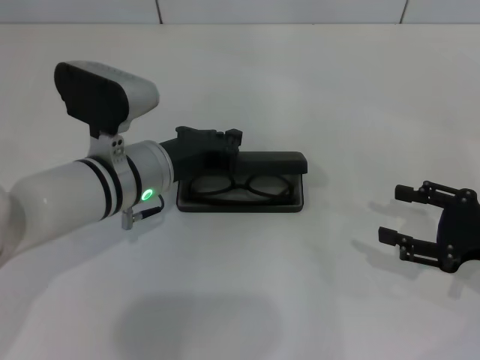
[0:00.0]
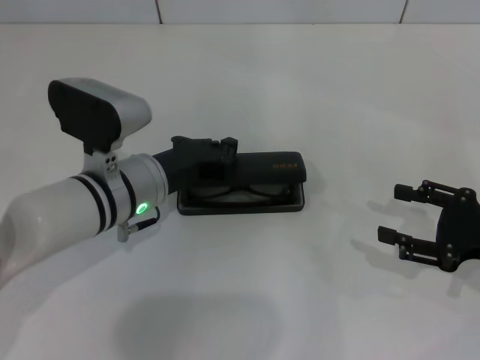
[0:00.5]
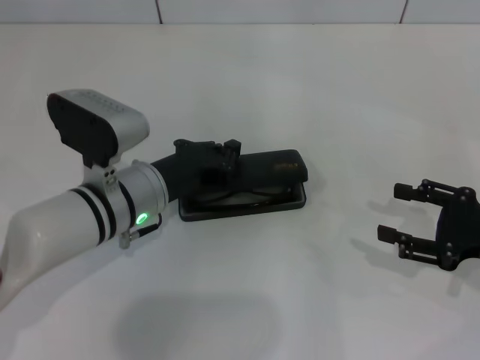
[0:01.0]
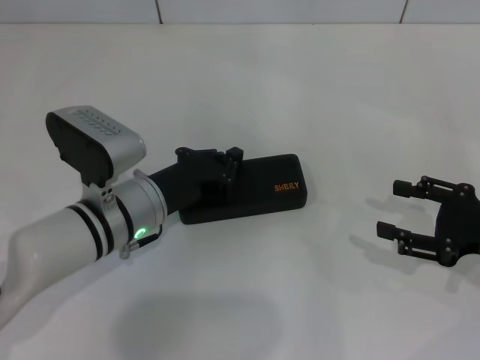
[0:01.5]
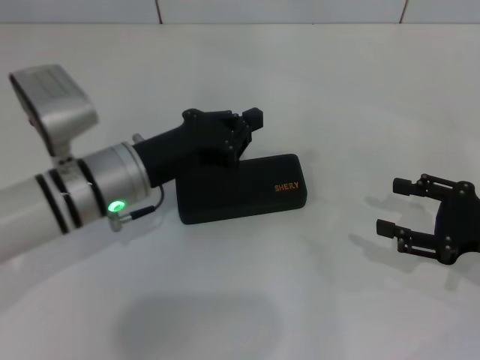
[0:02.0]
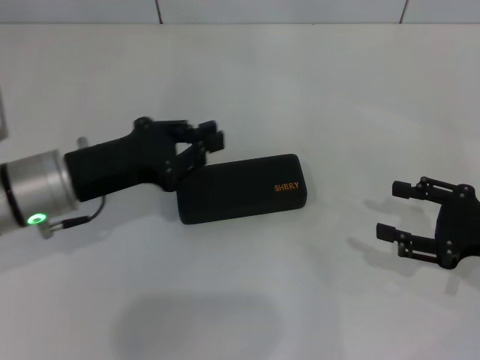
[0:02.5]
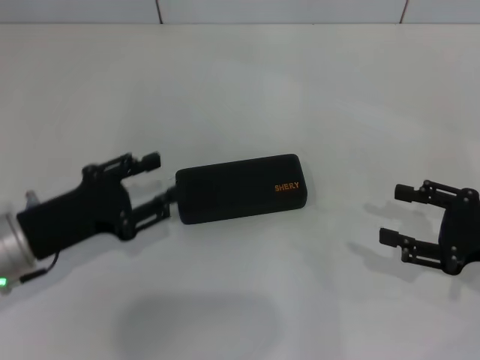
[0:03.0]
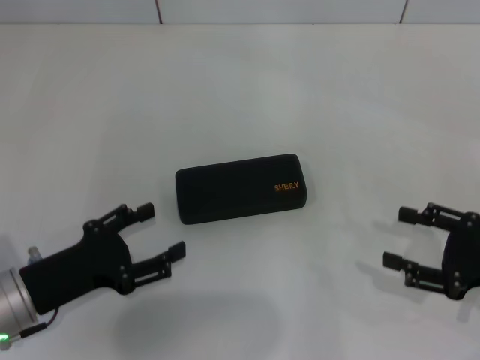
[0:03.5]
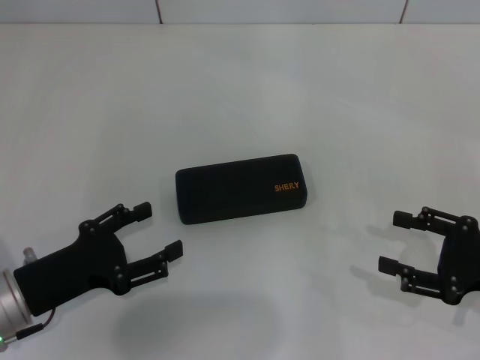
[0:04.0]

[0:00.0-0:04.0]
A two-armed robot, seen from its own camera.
0:02.0 to 0:04.0: The left gripper travels backward, to the left and downward by approximately 15 cm, and opens its fingers.

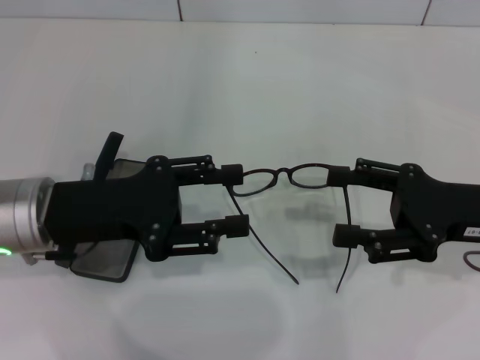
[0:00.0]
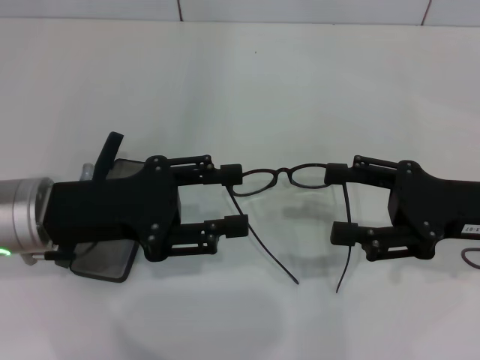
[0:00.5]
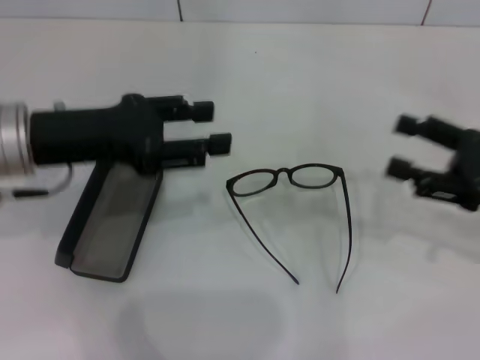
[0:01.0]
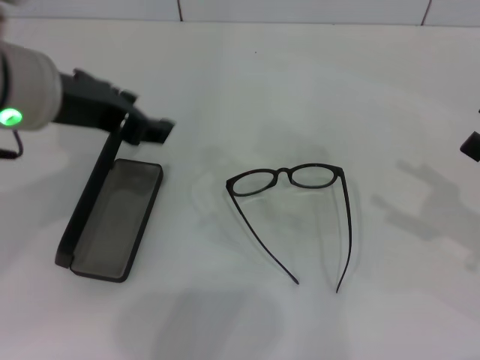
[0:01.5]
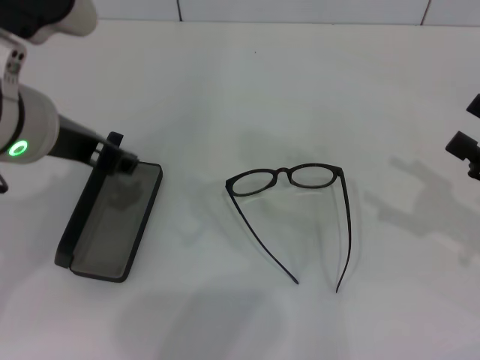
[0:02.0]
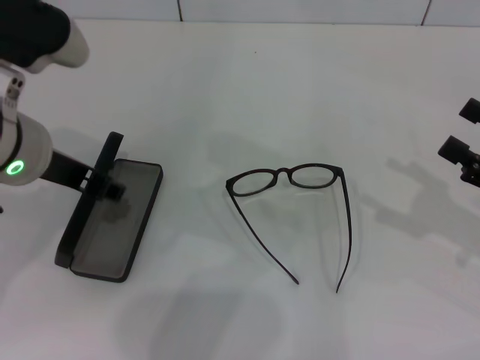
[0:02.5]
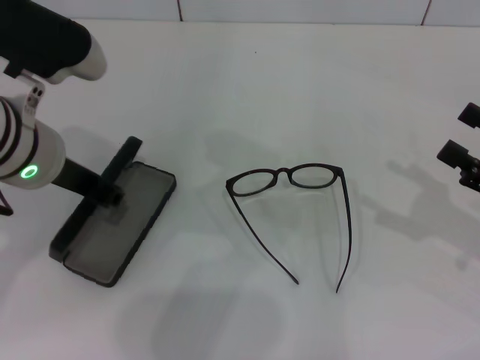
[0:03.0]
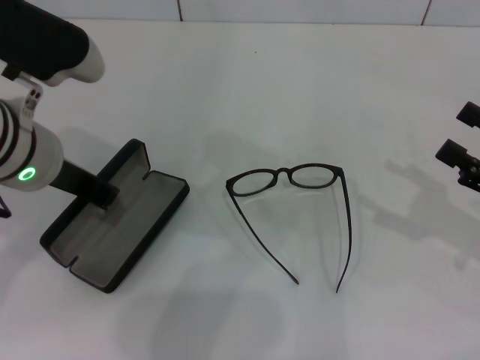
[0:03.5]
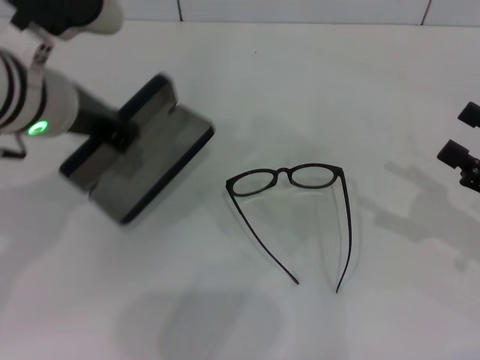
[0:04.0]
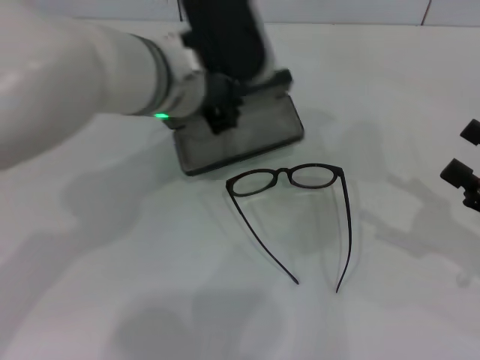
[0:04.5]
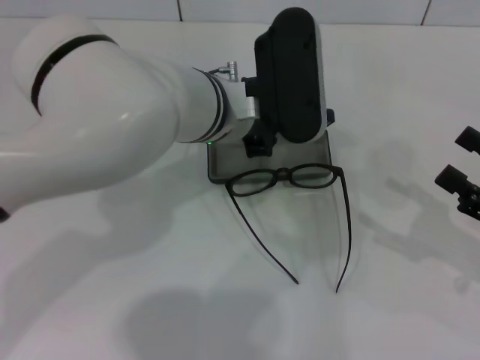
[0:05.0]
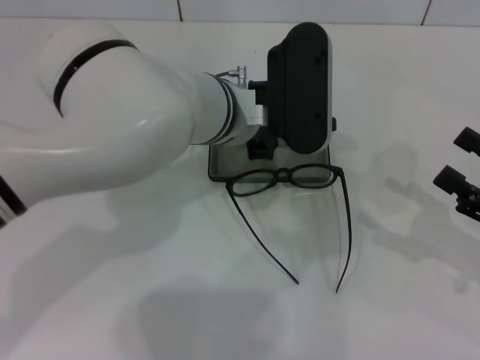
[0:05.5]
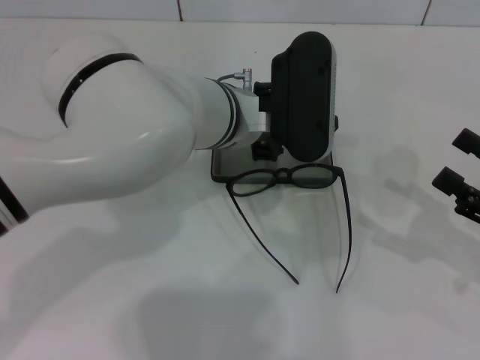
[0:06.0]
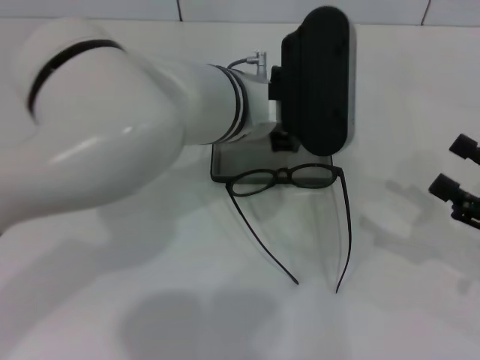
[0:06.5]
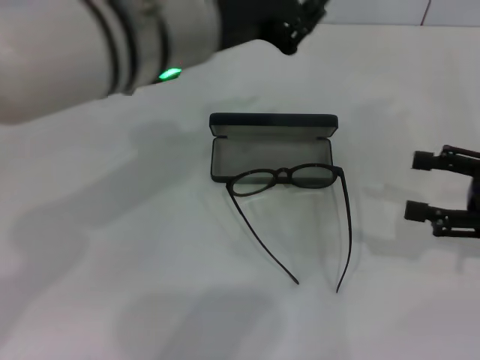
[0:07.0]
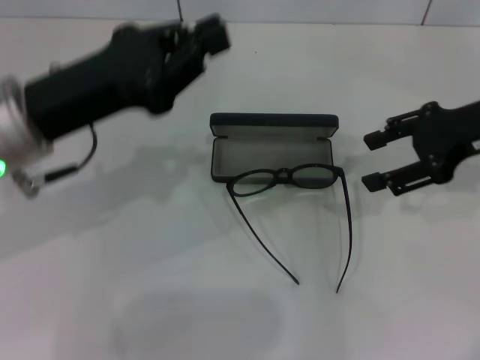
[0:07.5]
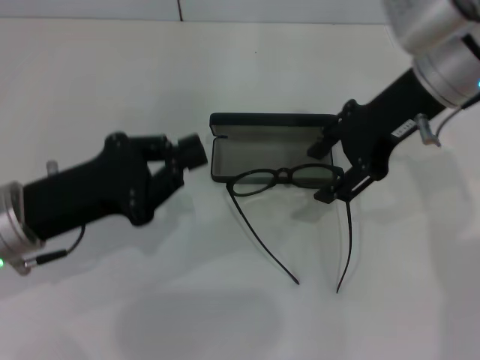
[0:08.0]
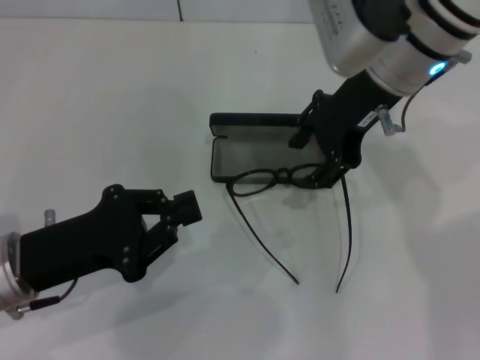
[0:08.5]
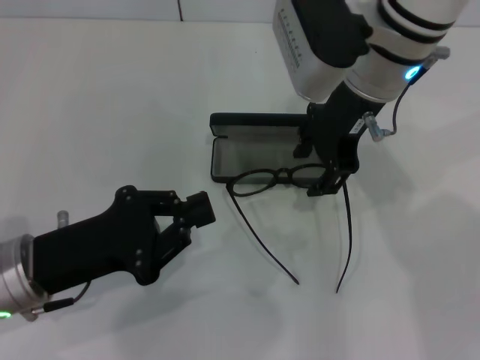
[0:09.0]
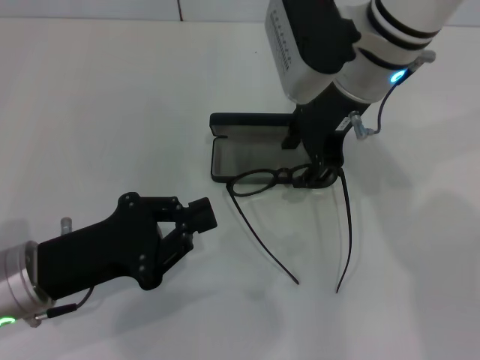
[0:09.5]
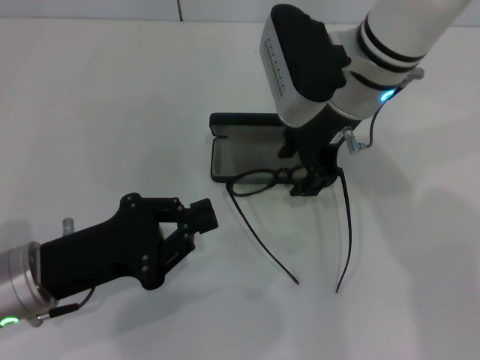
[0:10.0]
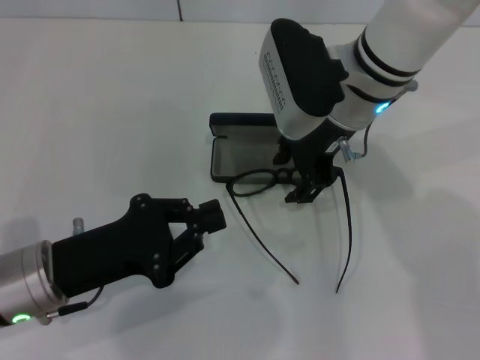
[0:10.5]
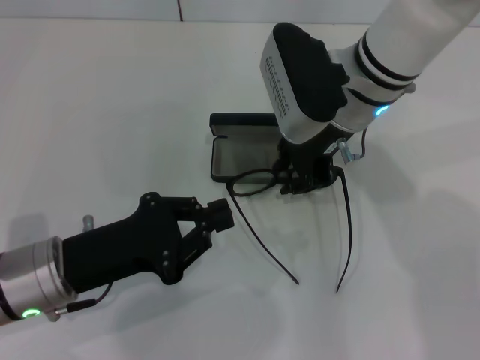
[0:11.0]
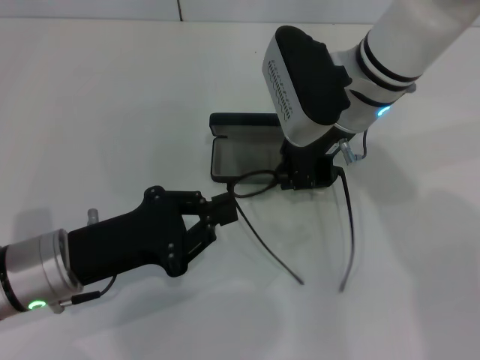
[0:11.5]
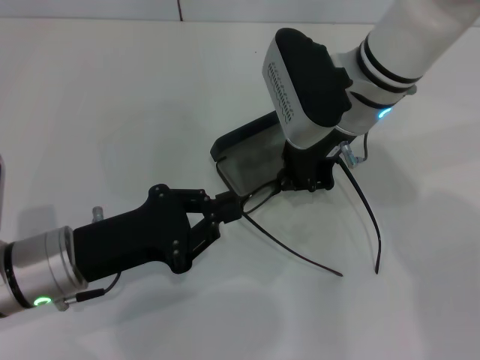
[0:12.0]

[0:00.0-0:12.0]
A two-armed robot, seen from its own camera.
Step, 0:00.0 to 0:03.0: Grab the glasses case with your left hand.
Step, 0:03.5 to 0:06.0: Place the glasses case in the center of the table with your left hand.
0:00.0 to 0:02.0: The left gripper goes some 10 cm upward; the right gripper travels to the right by some 10 cm.
0:02.0 to 0:04.0: The left gripper closes.
0:04.0 to 0:06.0: The left gripper is displaced to the right and downward by about 15 cm.
0:06.0 to 0:08.0: The left gripper is displaced to the left and backward by some 25 cm. The right gripper travels to the left, forward and upward by some 30 cm.
0:08.0 to 0:10.0: The right gripper shifts approximately 10 cm to the left.
0:10.0 to 0:12.0: The right gripper closes.

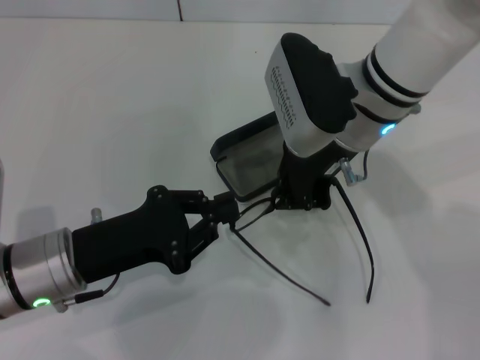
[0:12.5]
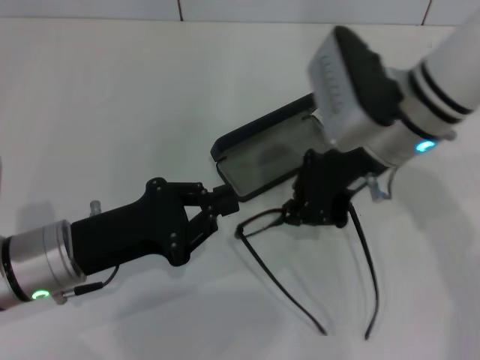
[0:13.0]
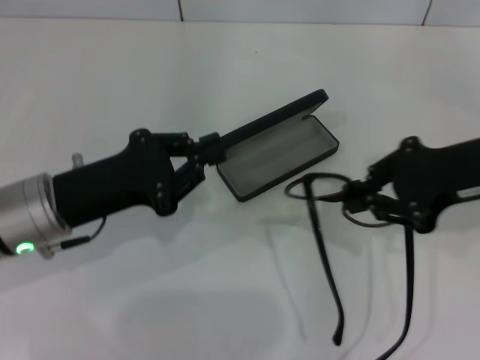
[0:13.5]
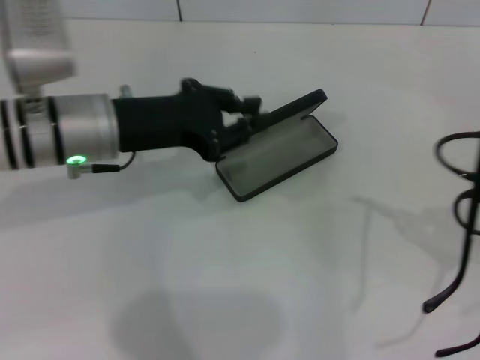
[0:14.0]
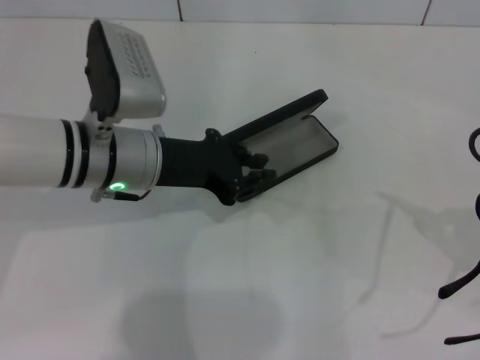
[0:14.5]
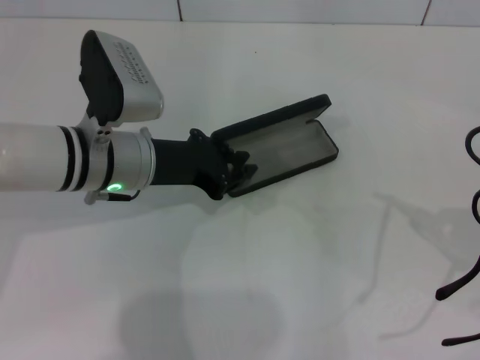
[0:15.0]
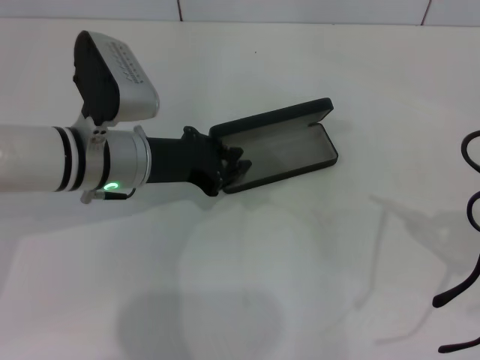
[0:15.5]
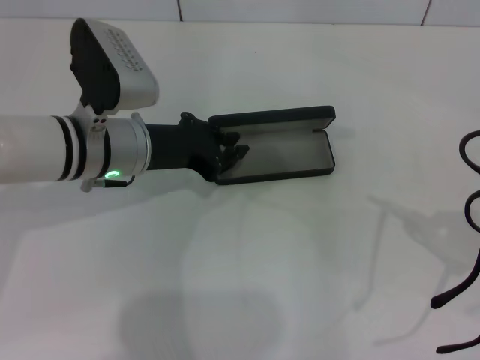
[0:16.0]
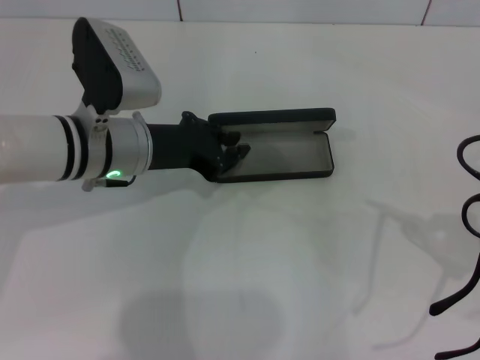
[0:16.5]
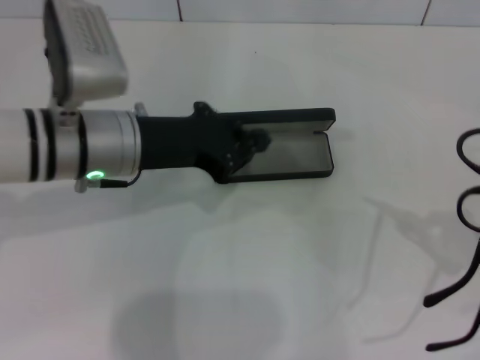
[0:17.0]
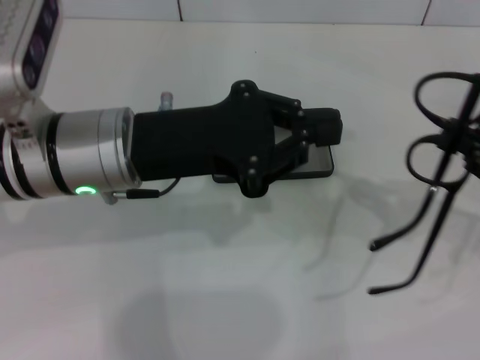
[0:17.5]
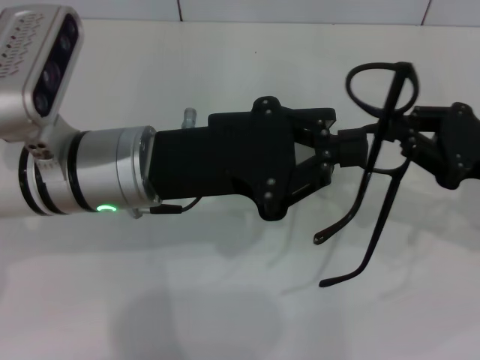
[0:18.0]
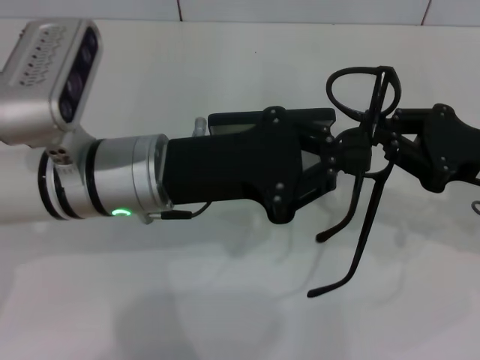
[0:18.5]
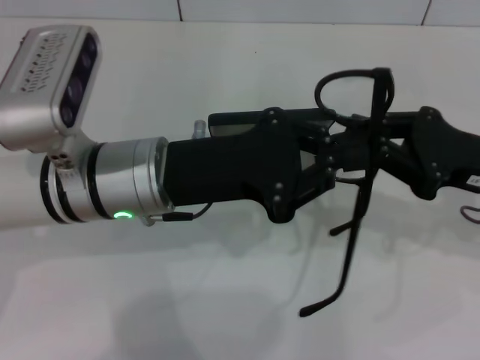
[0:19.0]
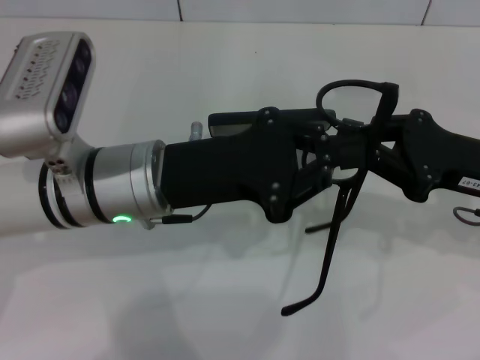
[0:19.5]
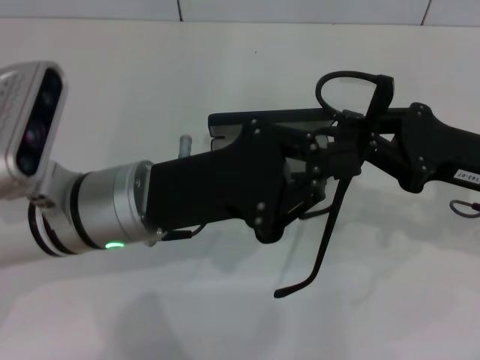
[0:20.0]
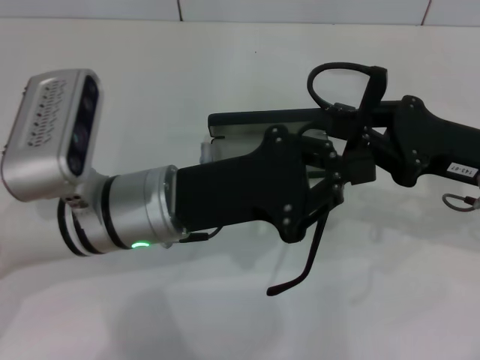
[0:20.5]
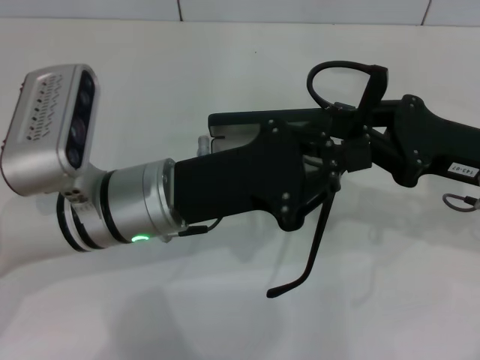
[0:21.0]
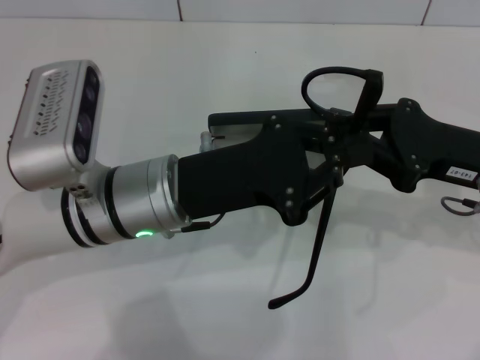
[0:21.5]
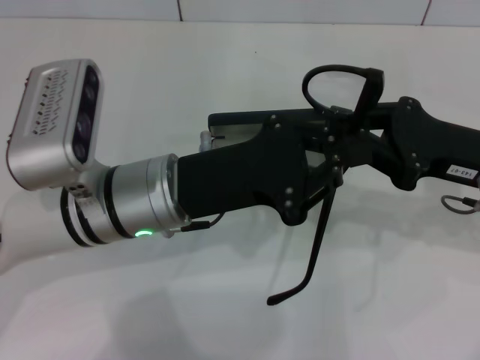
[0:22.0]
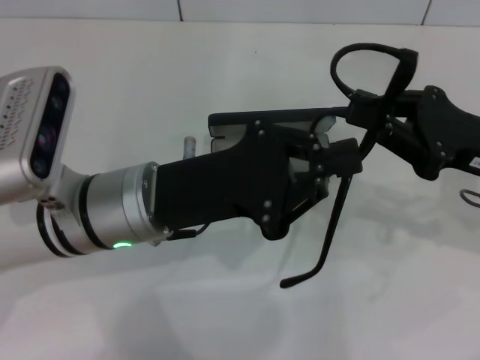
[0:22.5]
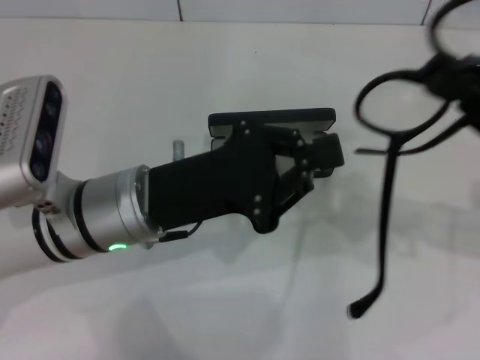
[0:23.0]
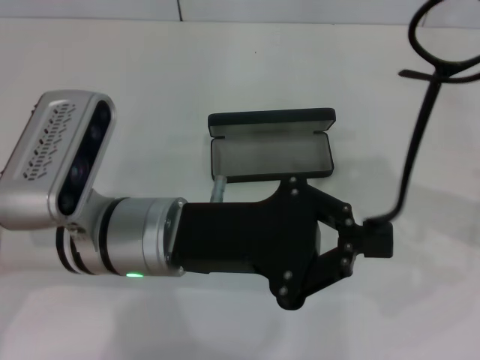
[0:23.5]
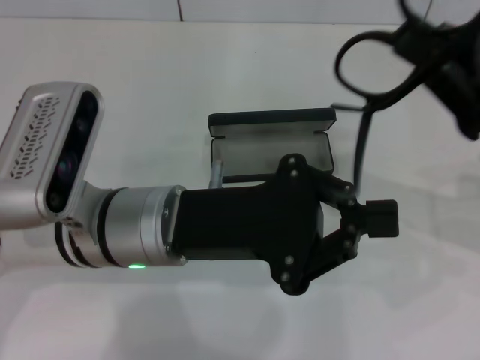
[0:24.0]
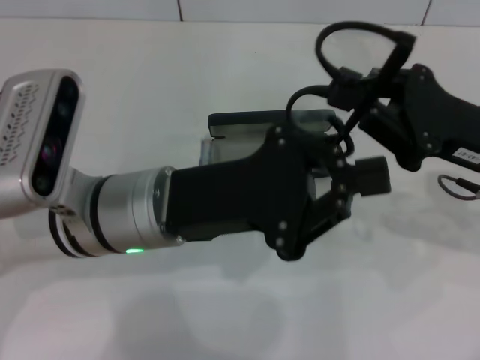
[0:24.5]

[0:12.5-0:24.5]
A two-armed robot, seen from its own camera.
0:12.5 to 0:14.5: The left gripper shifts about 15 cm forward, to the right and upward. The right gripper travels to the right and backward by roughly 35 cm.
0:14.5 to 0:16.5: The grippers stay close to where they were, moving slightly.
0:16.5 to 0:18.5: The left gripper shifts approximately 5 cm backward. The right gripper is displaced to the left and forward by some 15 cm.
0:20.5 to 0:22.5: Both grippers stay put.
